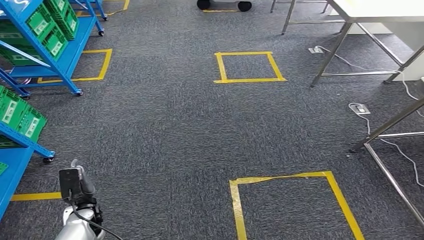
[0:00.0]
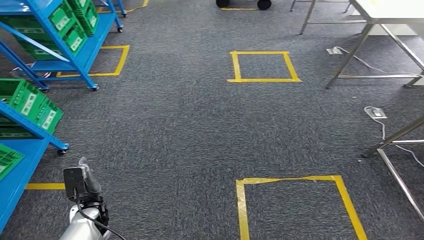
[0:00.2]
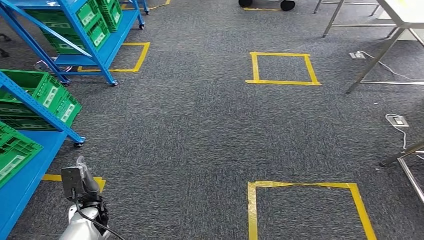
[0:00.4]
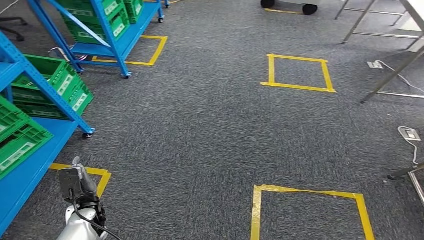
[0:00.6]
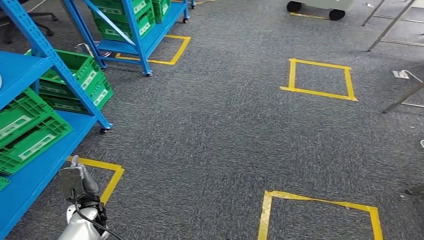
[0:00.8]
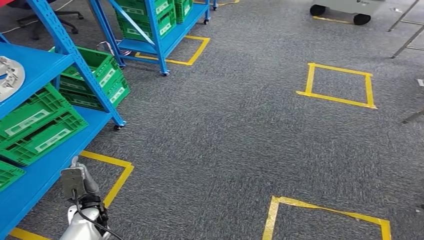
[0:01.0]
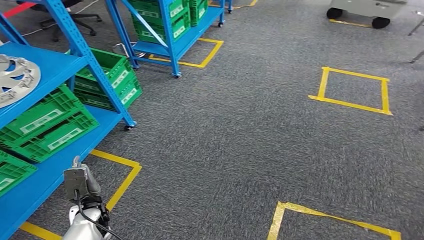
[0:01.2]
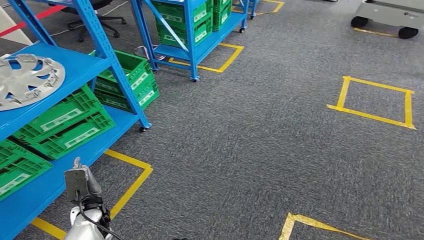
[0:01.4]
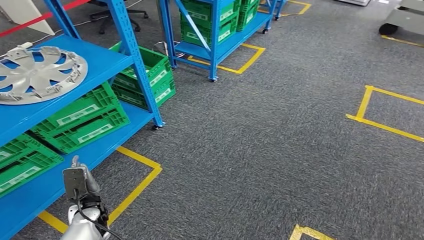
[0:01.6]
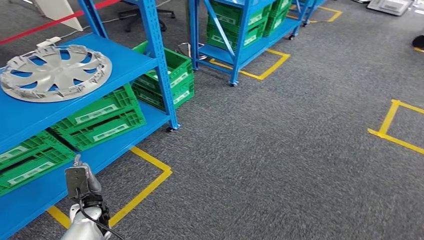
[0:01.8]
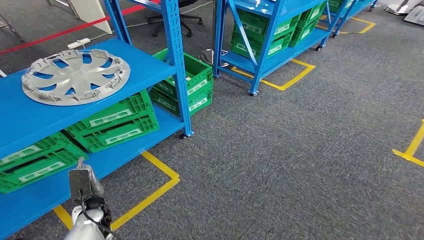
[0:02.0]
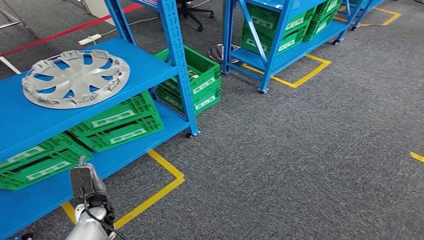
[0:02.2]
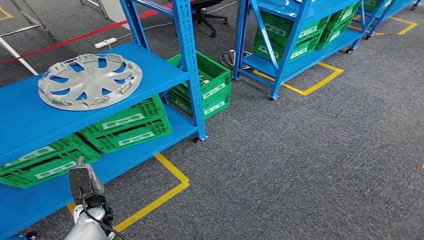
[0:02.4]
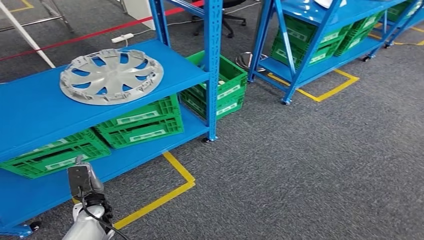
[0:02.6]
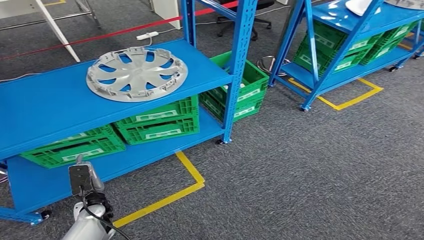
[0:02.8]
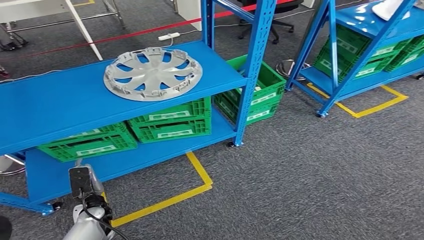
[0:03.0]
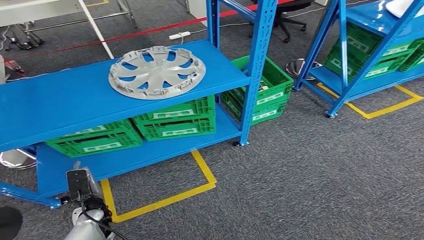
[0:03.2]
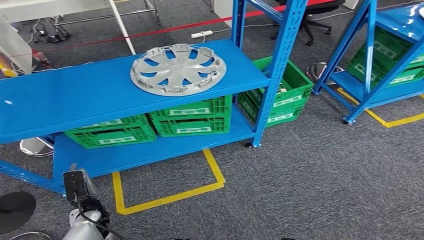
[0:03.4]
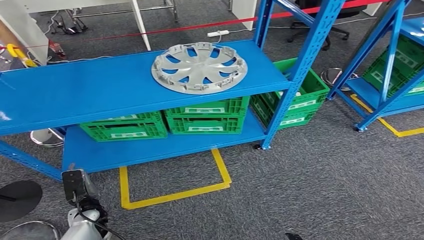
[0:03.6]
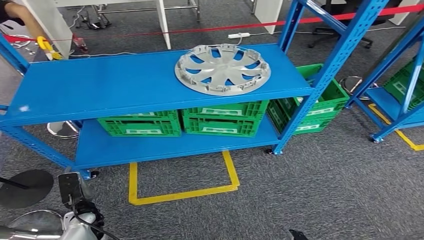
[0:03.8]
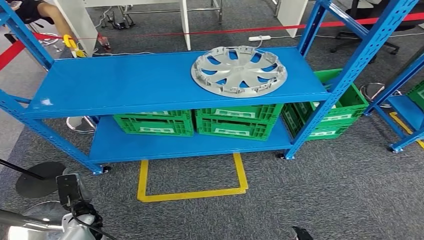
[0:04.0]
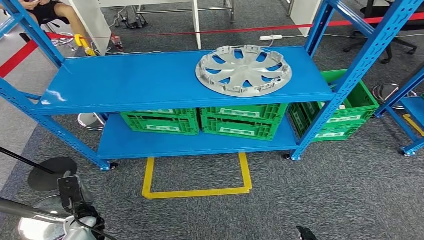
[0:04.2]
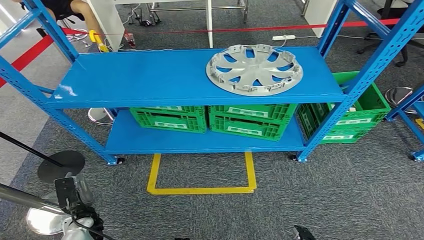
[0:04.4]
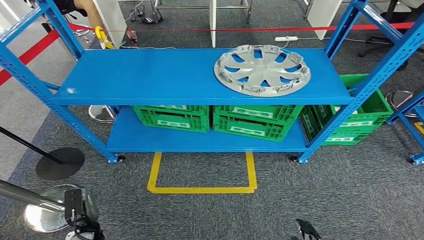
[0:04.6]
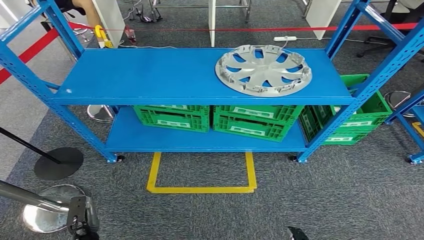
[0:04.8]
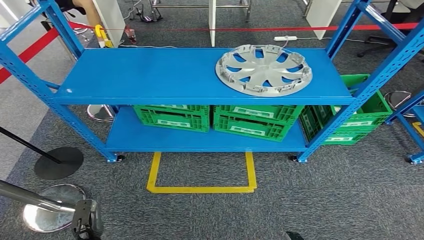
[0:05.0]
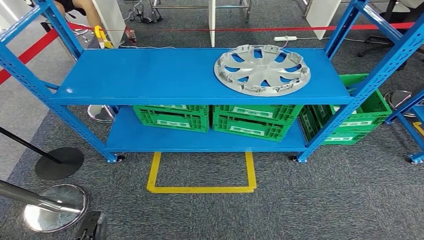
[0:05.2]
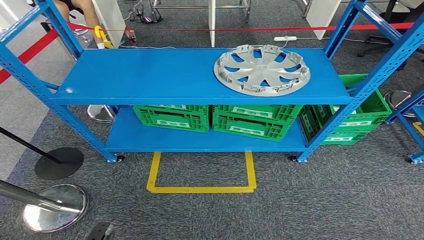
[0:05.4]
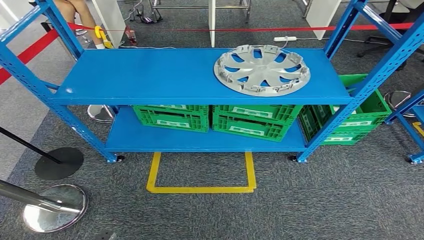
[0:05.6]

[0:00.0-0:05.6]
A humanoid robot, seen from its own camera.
Step, 0:00.0 to 0:05.6: Move to the initial position of the workbench.
